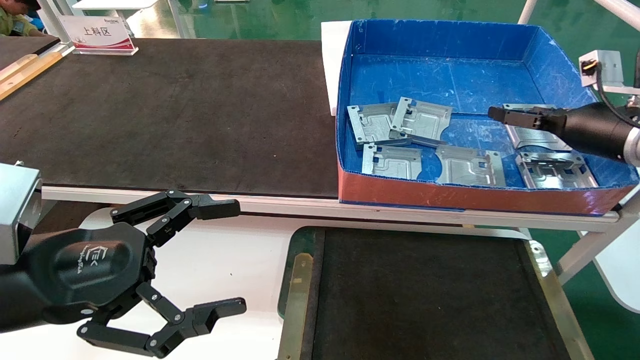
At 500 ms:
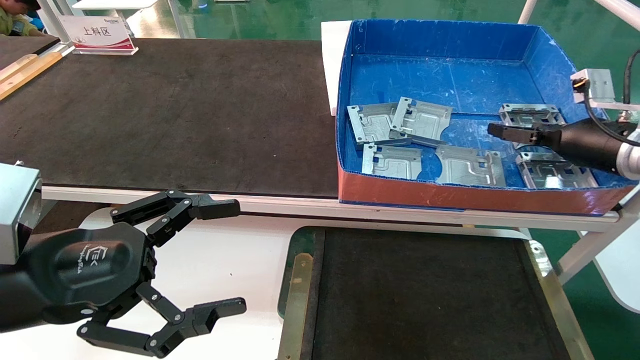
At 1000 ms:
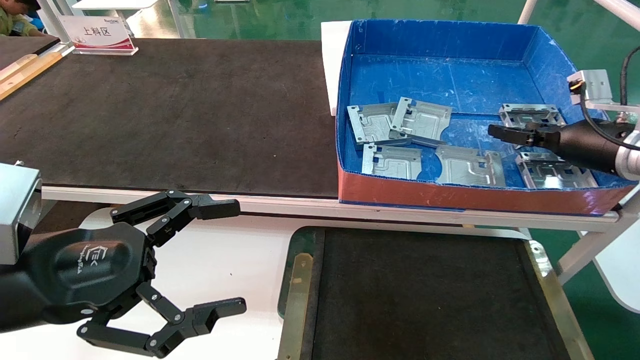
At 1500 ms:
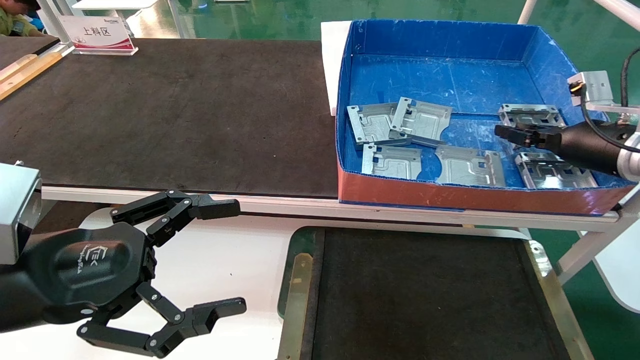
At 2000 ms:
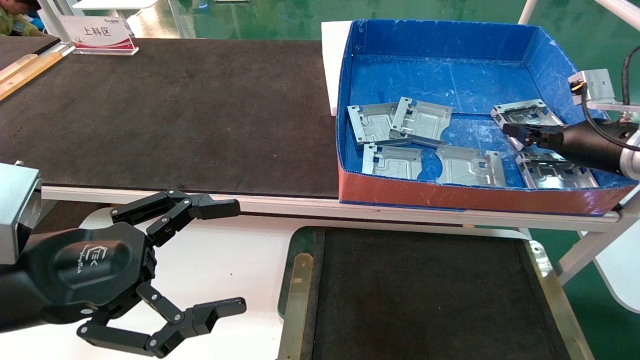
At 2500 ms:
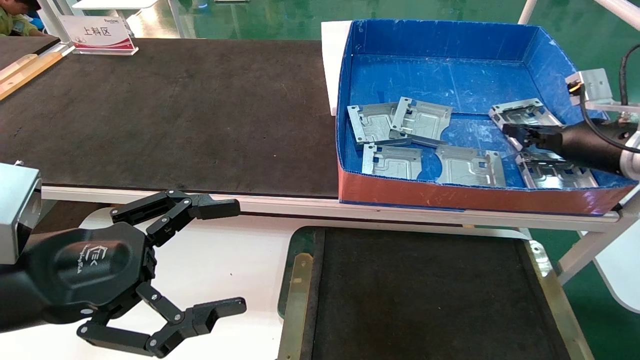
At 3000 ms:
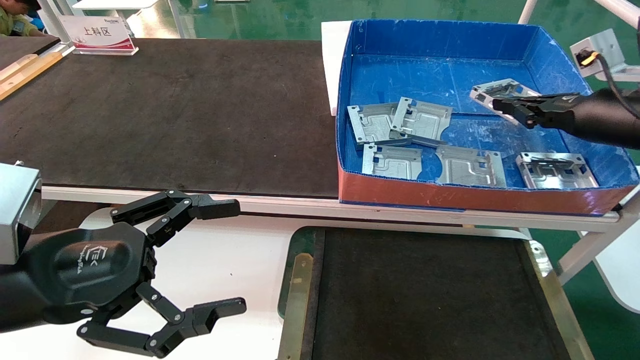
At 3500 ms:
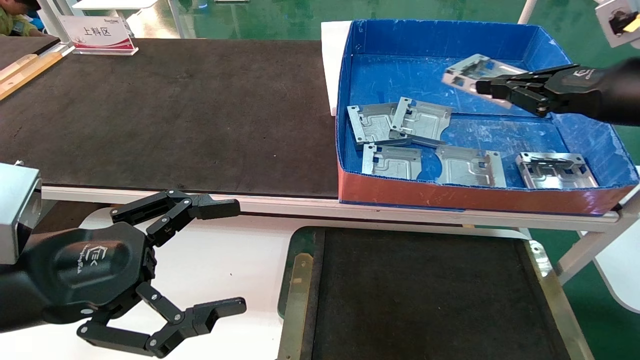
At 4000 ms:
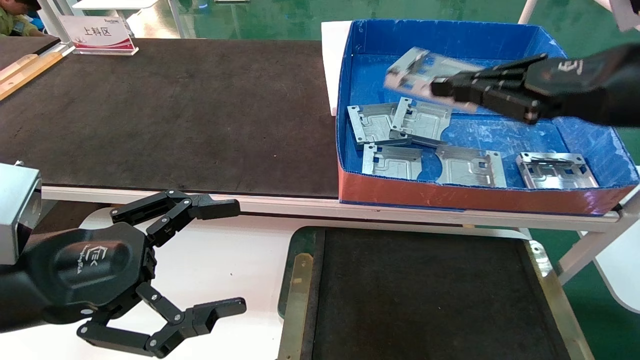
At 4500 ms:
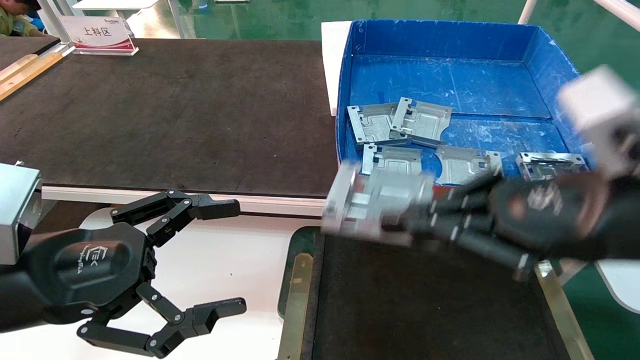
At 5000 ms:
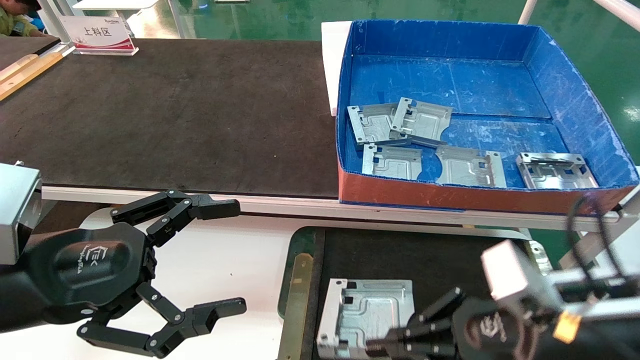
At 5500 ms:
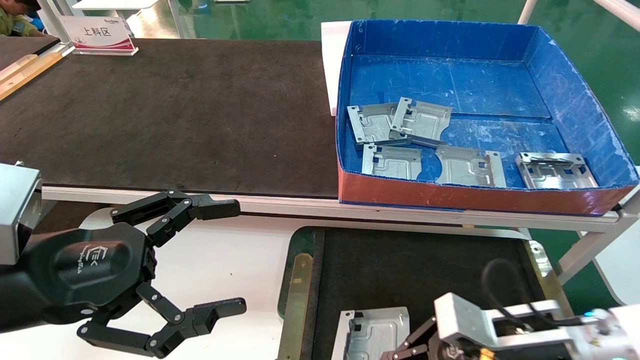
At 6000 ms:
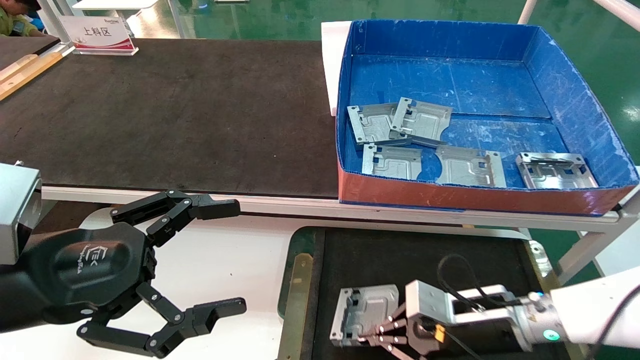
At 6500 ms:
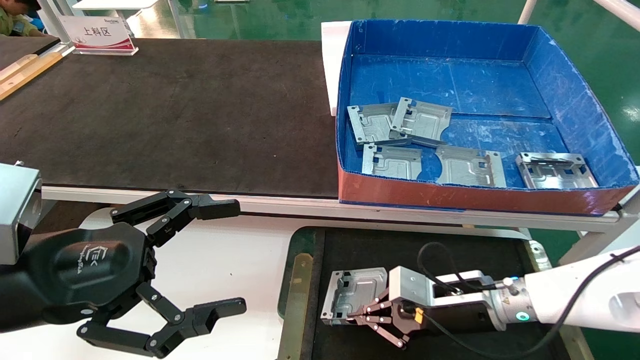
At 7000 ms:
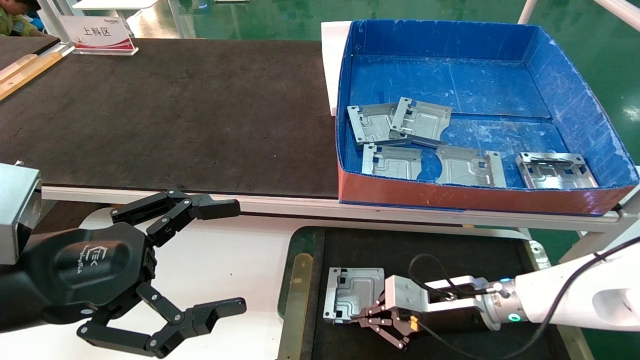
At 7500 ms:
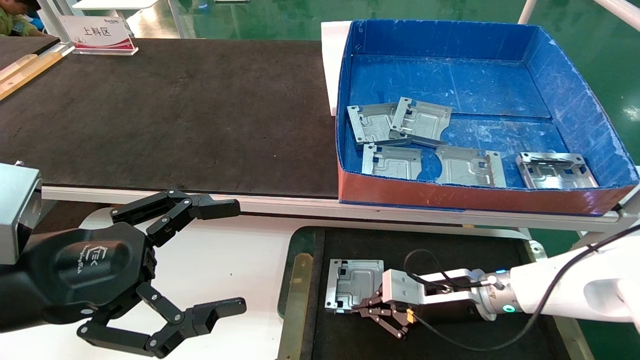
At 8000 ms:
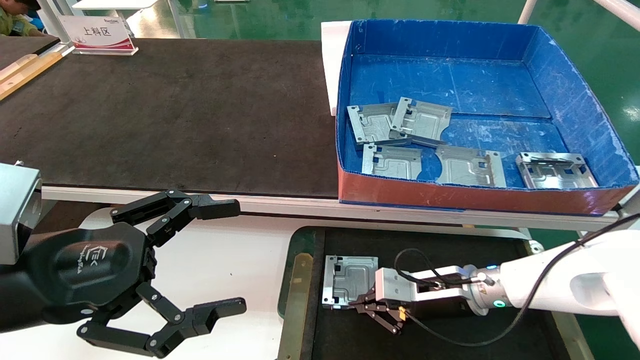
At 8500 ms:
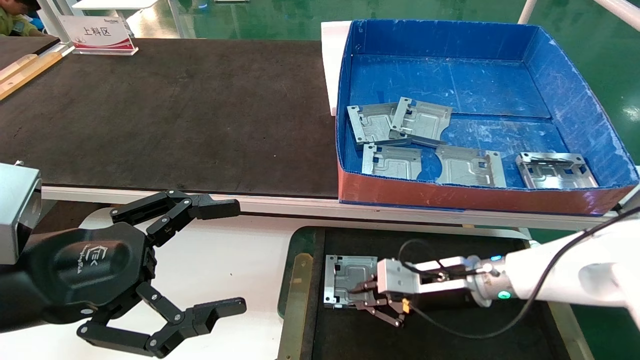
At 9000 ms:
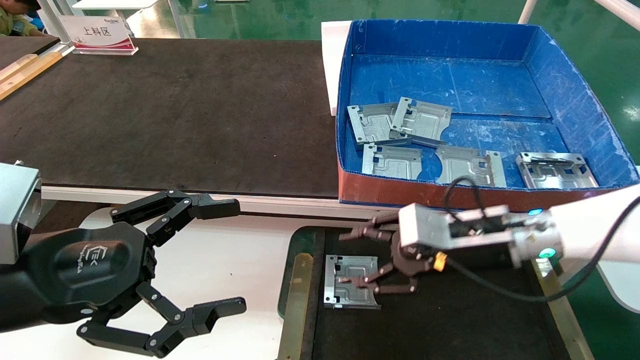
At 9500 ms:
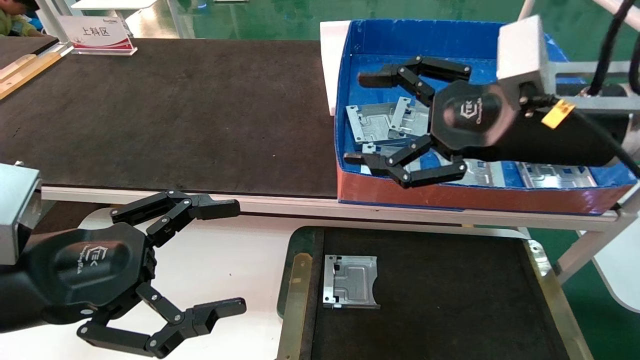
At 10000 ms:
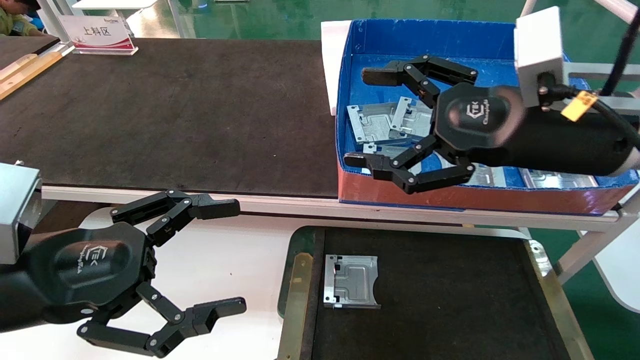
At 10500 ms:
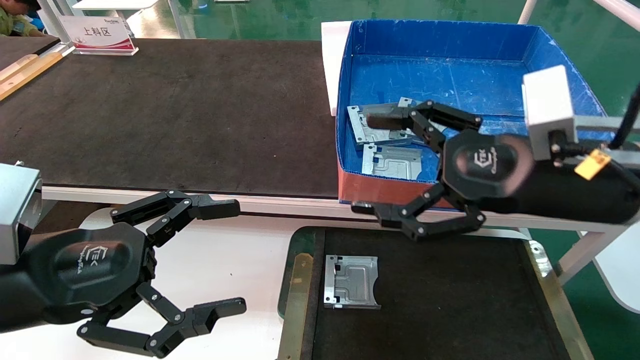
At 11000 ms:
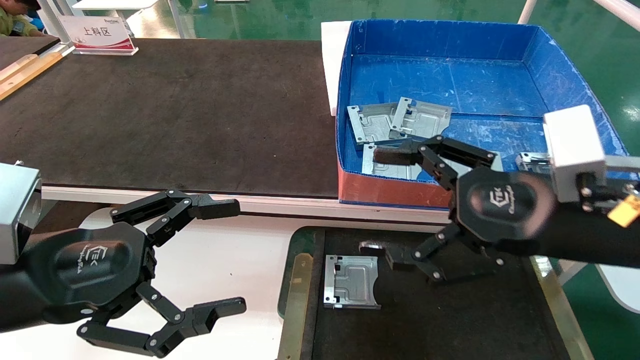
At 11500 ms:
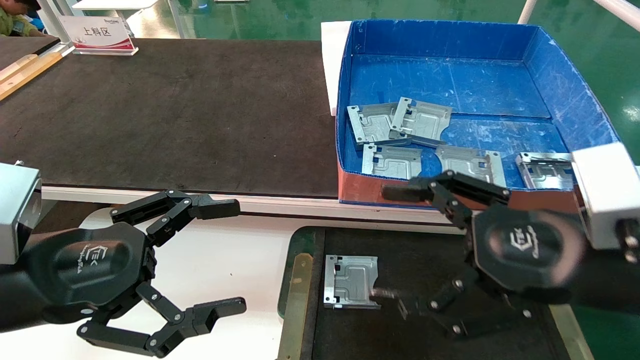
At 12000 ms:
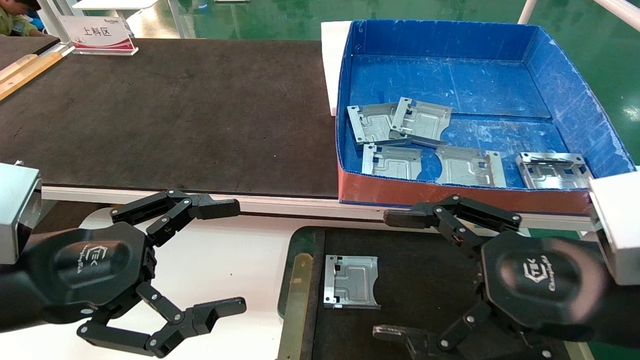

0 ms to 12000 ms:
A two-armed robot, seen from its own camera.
Task of the whole recording: pick up parts and place them into a black container.
Step, 0 ms to 2000 ms: Pick up the hard drive bracket from the feeding area.
Step, 2500 ms to 8500 ms: Place the hard drive bracket into the box.
0 ms to 2000 ms: The right gripper closes.
2000 ms to 4000 ms: The right gripper is displaced backward, upward and to the left by some 20 cm.
4000 ms to 6000 ms: The right gripper travels downward by some 30 cm.
6000 ms to 8000 ms: The right gripper shifts about 5 cm forward.
8000 ms to 10000 ms: The right gripper goes about 25 cm upward and backward, and opens its fingers.
10000 ms to 12000 ms: The right gripper is displaced backward and downward by approximately 15 cm.
